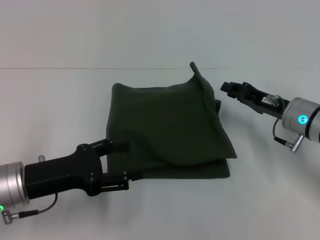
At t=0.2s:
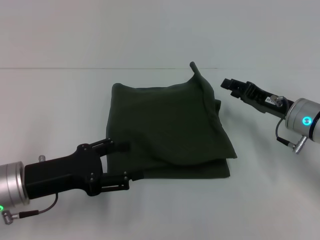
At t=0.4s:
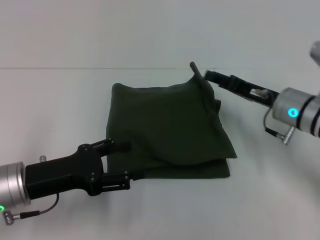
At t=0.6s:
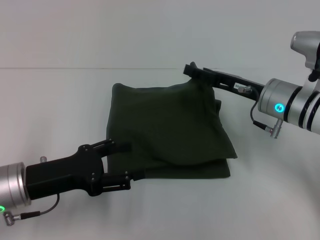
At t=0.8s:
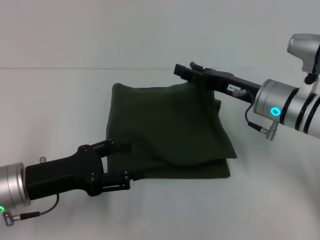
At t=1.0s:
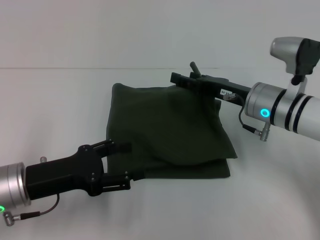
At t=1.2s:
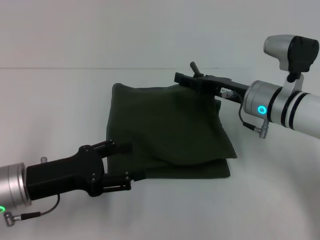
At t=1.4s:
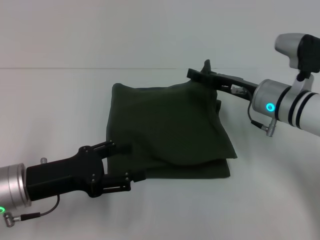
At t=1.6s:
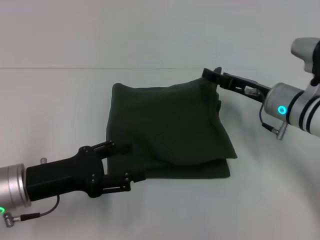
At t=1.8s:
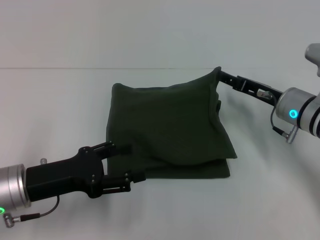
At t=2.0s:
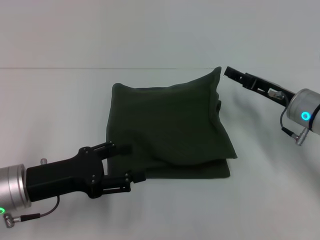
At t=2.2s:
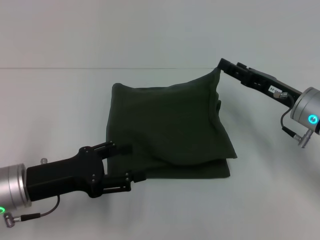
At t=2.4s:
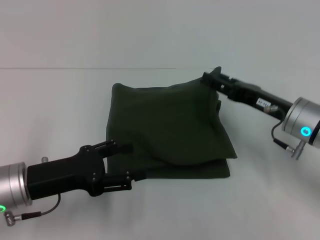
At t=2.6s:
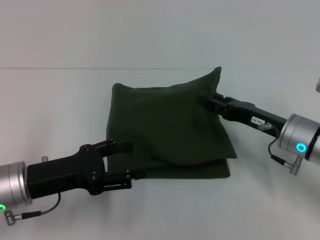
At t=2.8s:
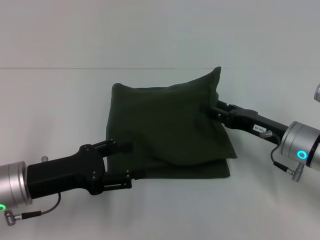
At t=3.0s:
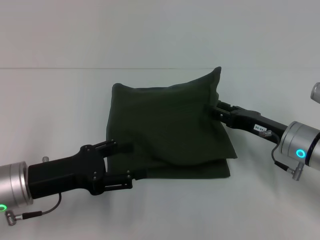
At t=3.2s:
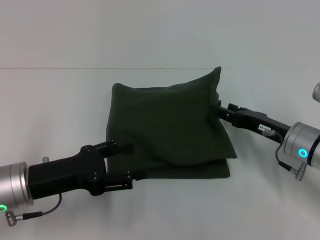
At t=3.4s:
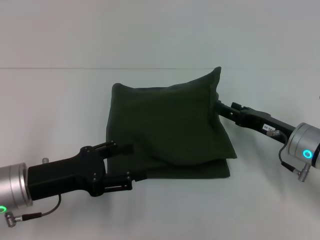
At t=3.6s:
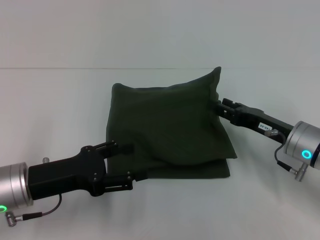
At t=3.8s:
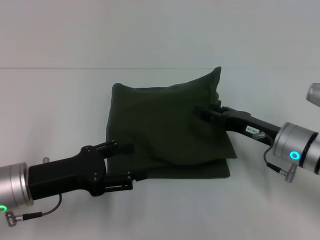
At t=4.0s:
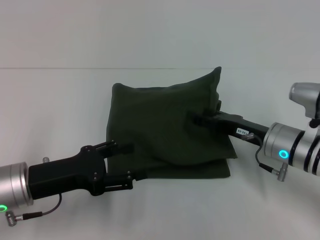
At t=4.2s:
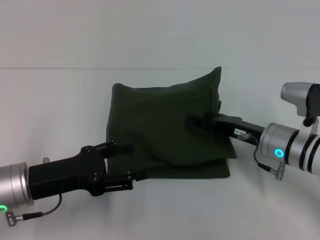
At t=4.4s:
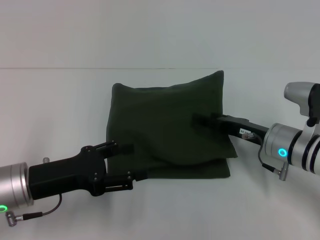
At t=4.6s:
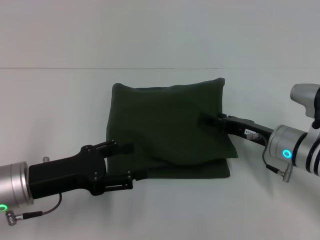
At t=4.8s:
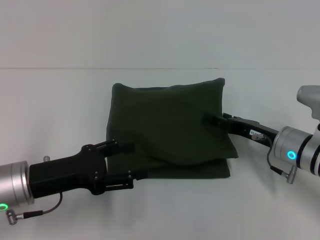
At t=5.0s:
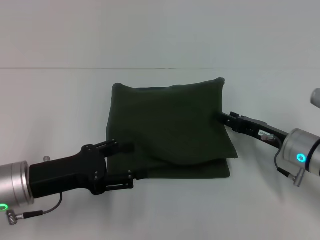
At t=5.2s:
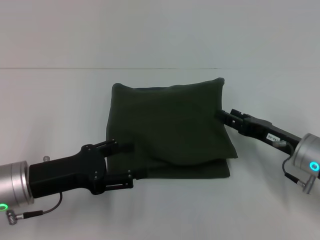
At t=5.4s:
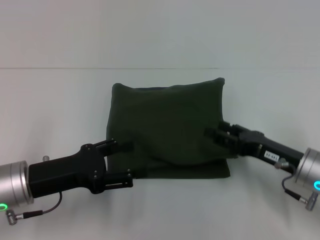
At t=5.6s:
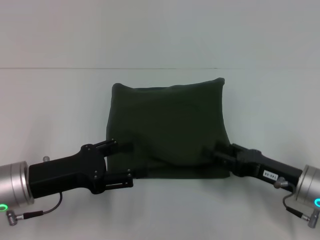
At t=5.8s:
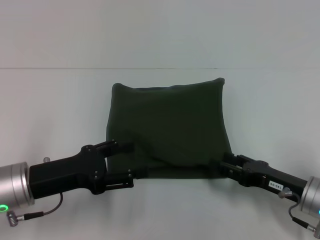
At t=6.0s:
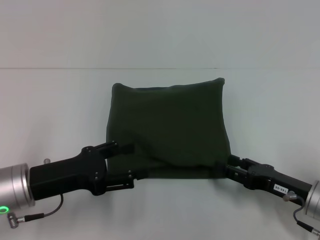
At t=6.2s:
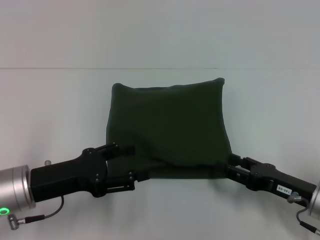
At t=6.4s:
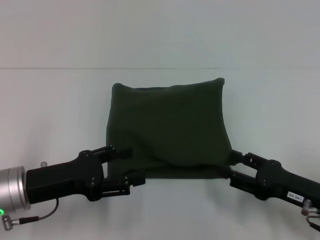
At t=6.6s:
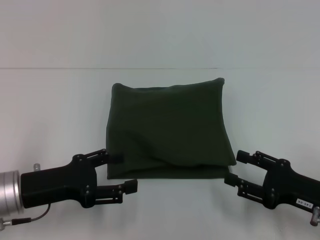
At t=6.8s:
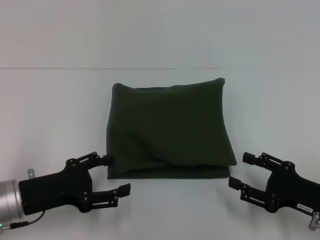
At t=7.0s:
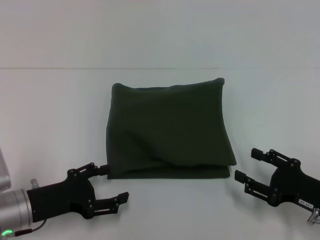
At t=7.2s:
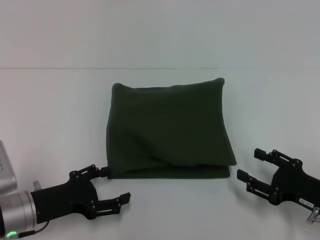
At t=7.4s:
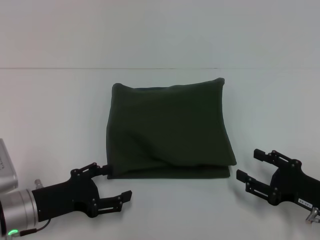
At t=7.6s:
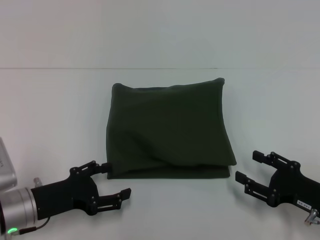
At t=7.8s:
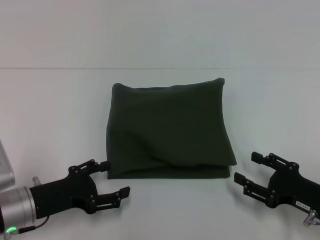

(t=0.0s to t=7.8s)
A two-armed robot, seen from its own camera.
t=0.0s - t=1.6s: The right gripper opens up.
t=1.6s - t=3.2s: The right gripper is displaced backward by about 5 cm.
t=3.2s - t=4.6s: The grippers make only small movements.
t=4.6s - t=6.2s: The right gripper shifts some 10 cm backward.
